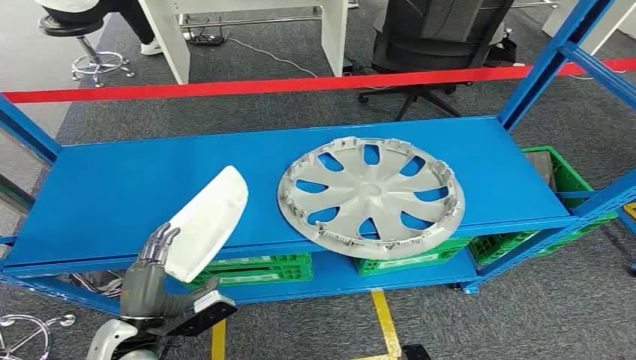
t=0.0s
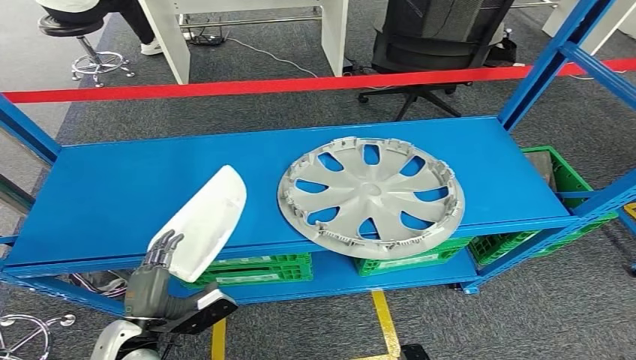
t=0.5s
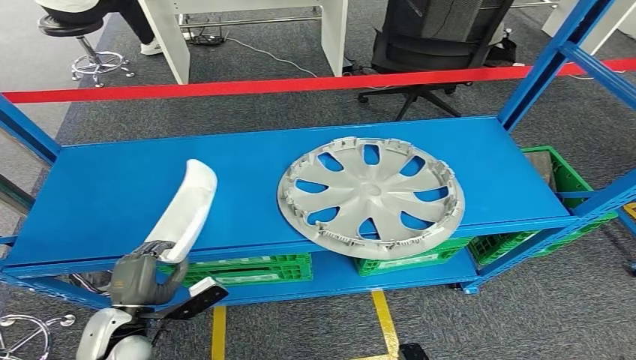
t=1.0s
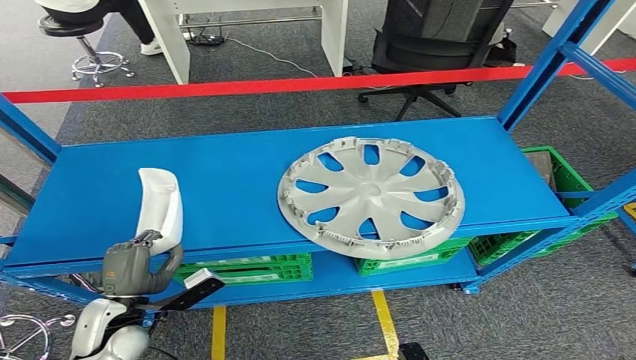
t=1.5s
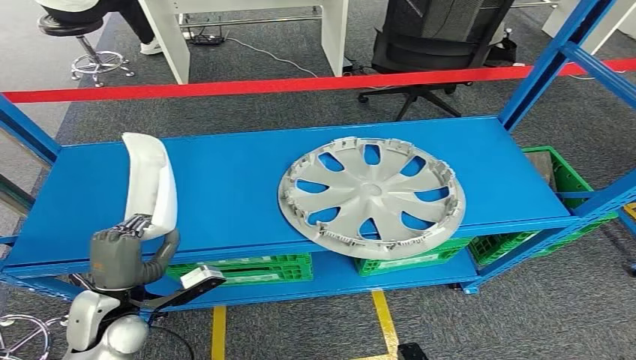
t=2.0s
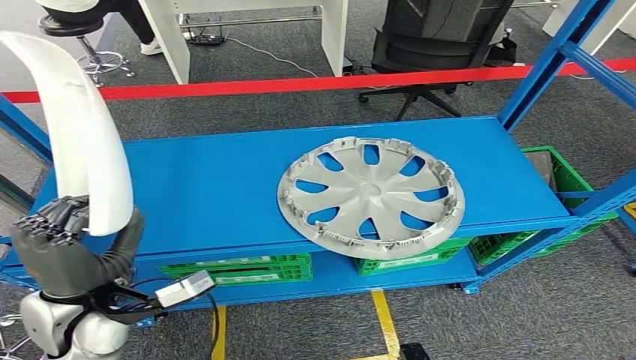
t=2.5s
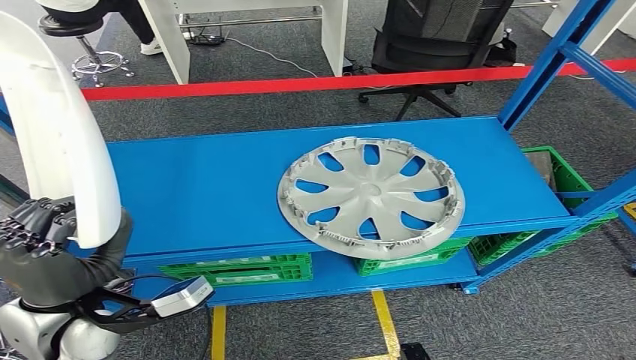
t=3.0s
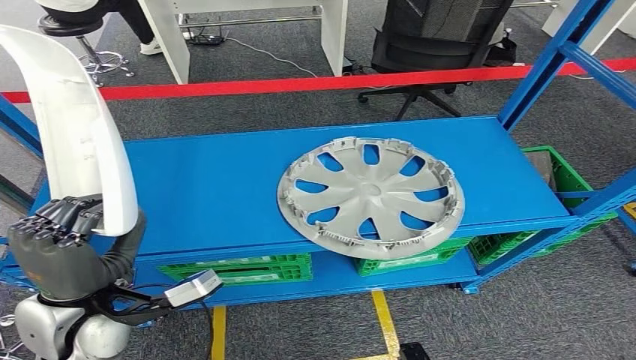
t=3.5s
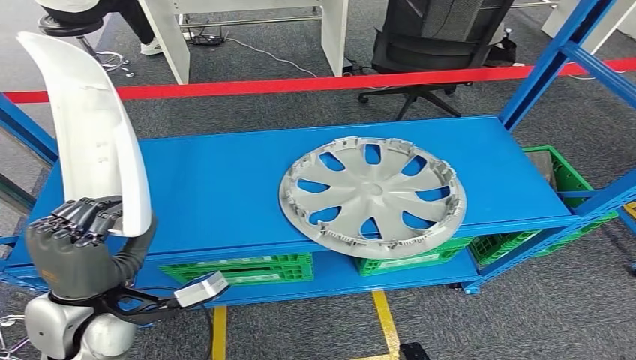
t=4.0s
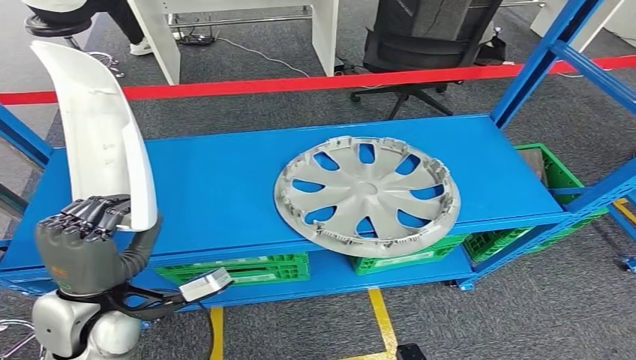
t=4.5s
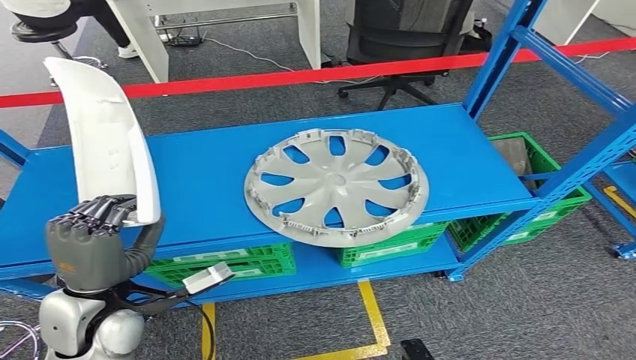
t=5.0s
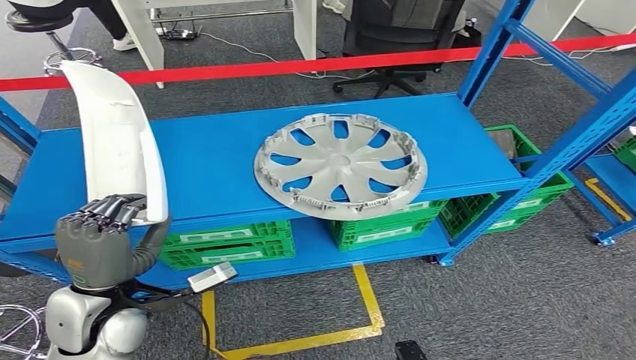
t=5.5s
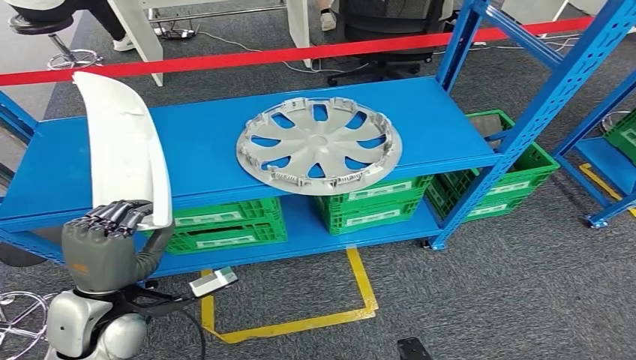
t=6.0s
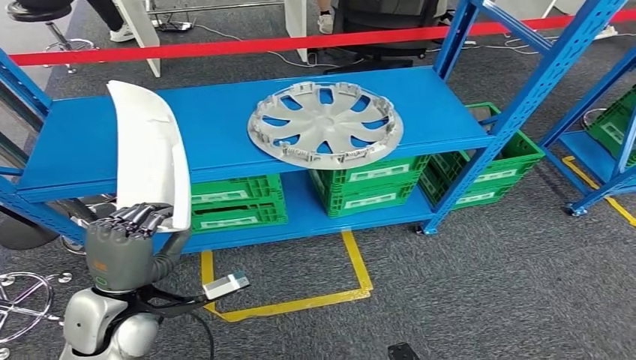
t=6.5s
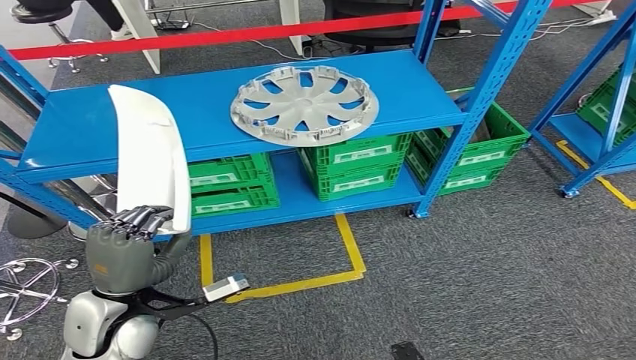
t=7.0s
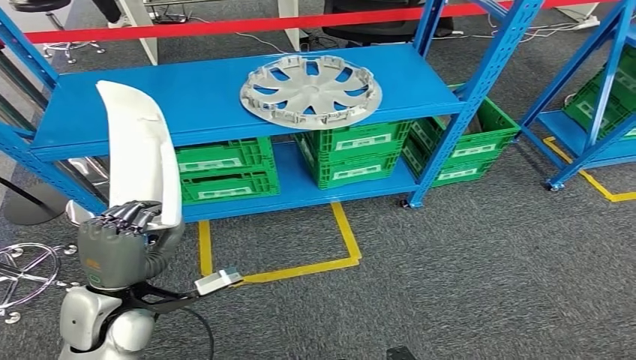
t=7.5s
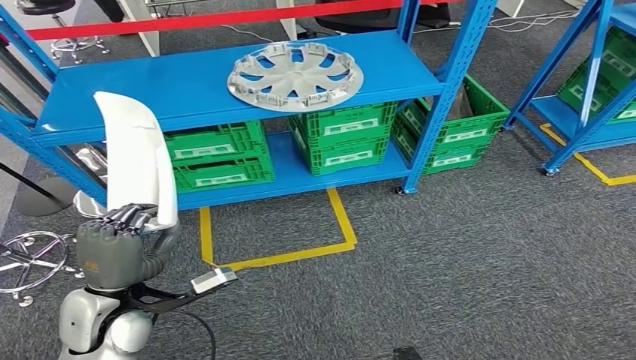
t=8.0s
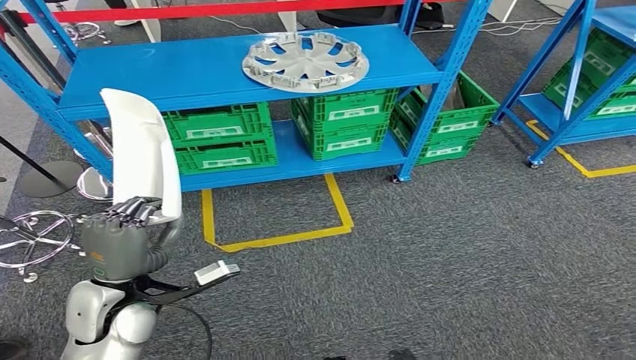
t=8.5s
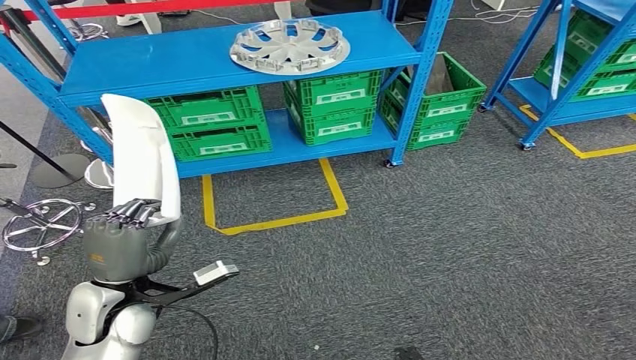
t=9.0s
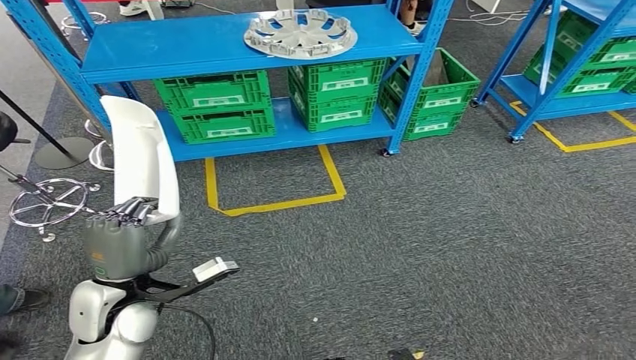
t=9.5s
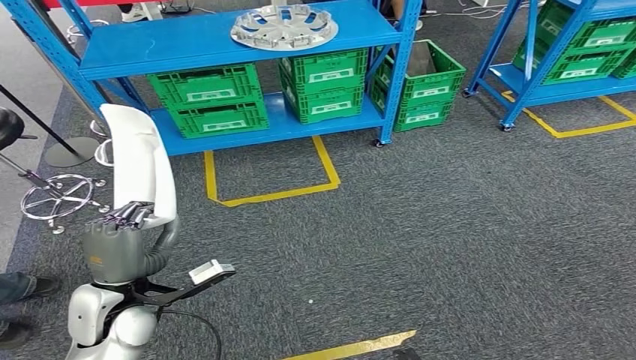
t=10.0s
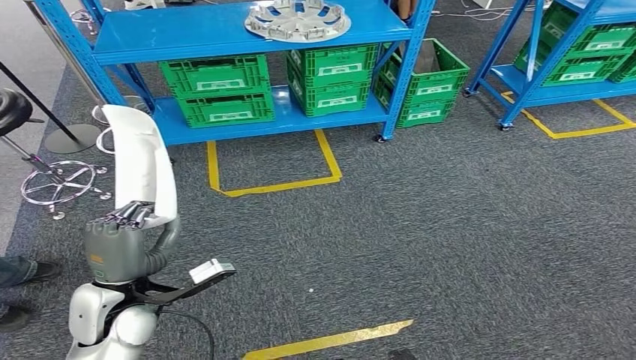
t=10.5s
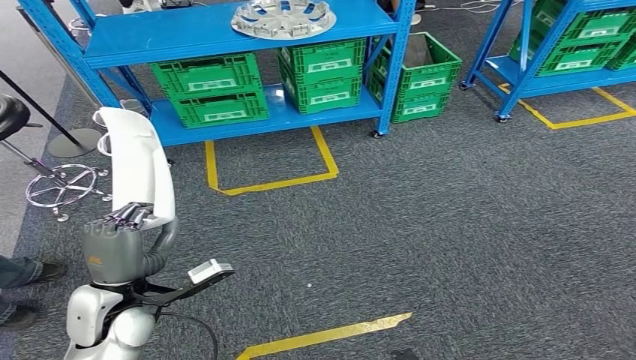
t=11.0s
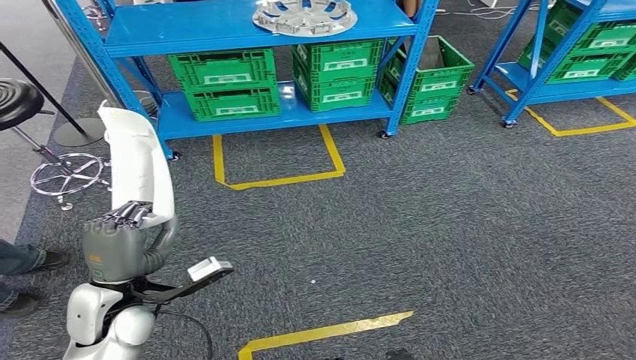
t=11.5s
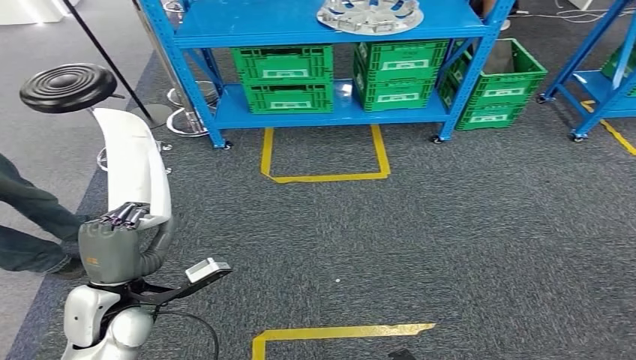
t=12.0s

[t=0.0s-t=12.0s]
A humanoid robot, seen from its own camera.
Step, t=0.0s to t=3.0s: Pick up the small component from the shelf.
t=2.0s to t=4.0s: The left hand moves upward, some 10 cm.

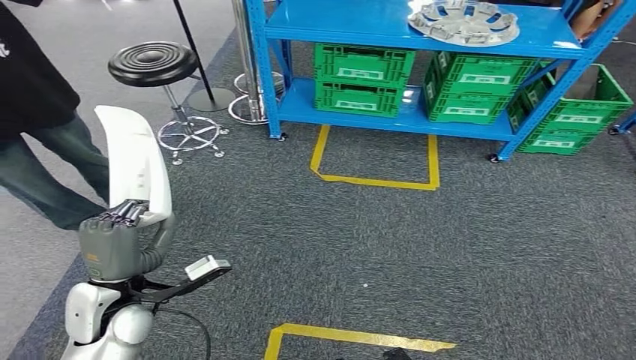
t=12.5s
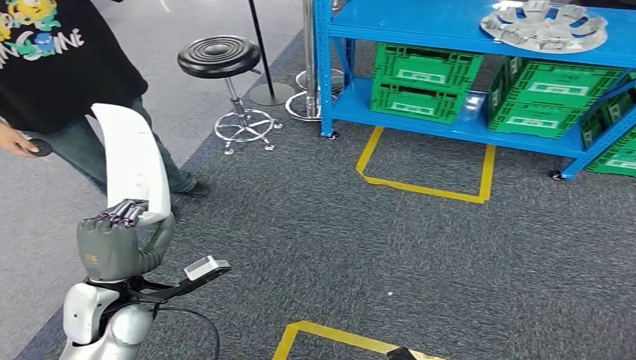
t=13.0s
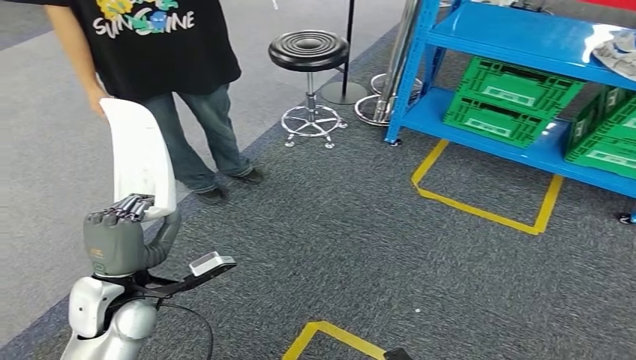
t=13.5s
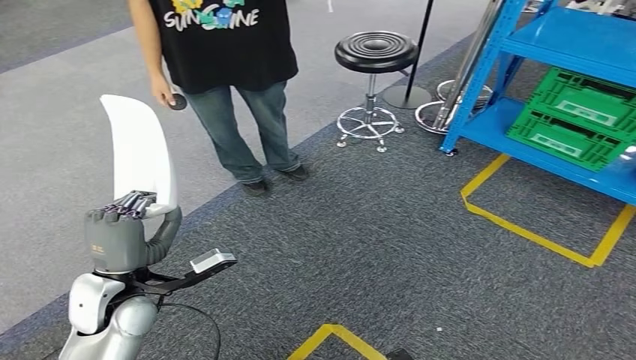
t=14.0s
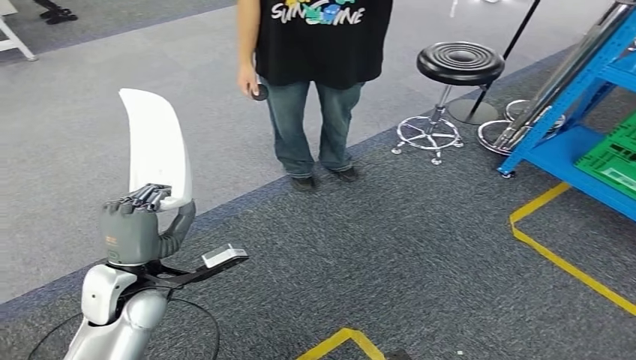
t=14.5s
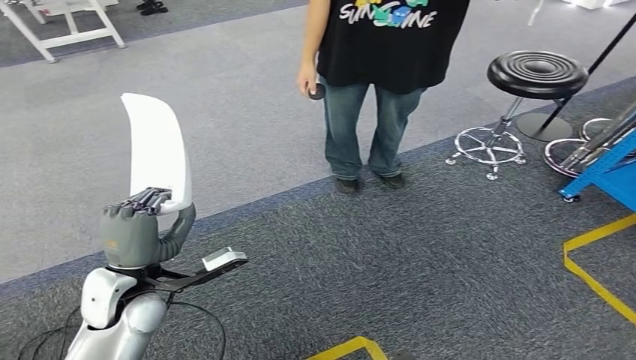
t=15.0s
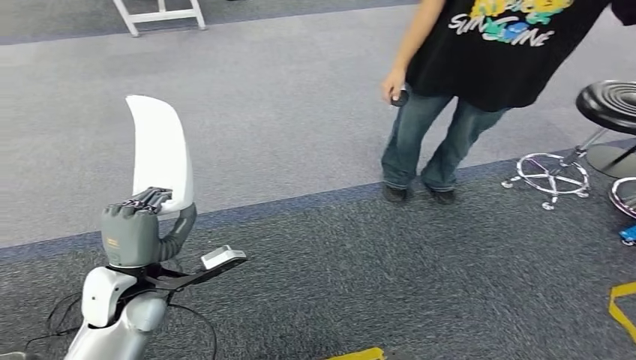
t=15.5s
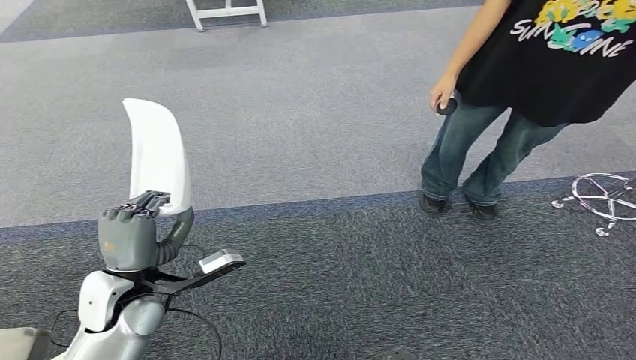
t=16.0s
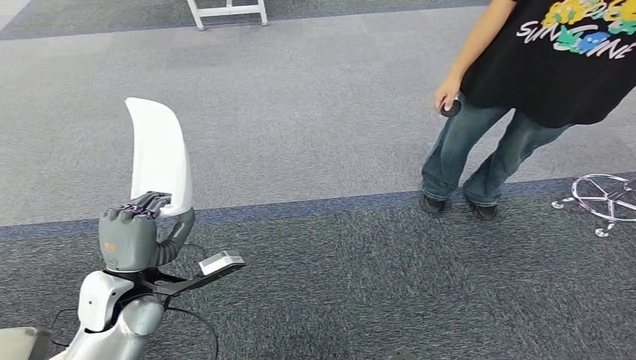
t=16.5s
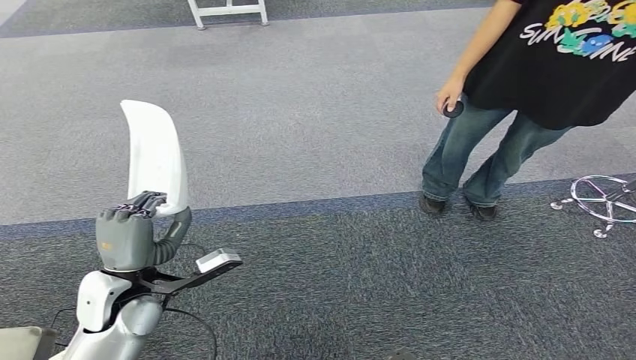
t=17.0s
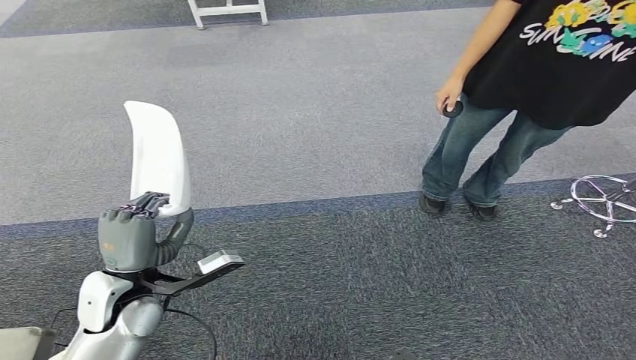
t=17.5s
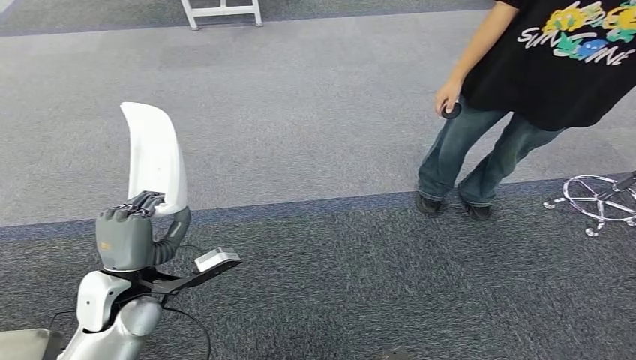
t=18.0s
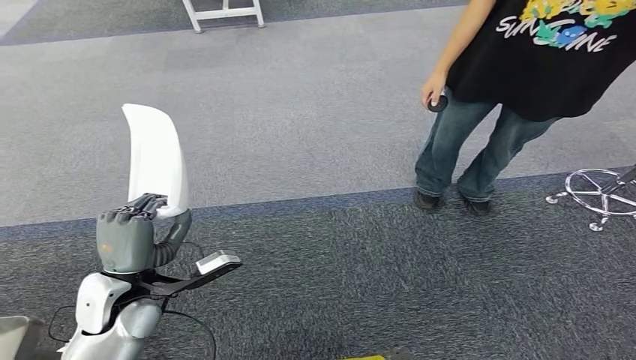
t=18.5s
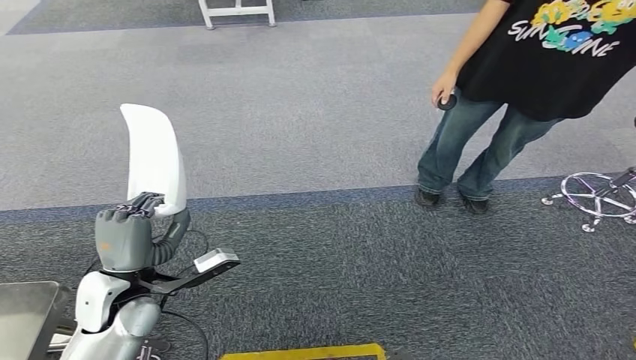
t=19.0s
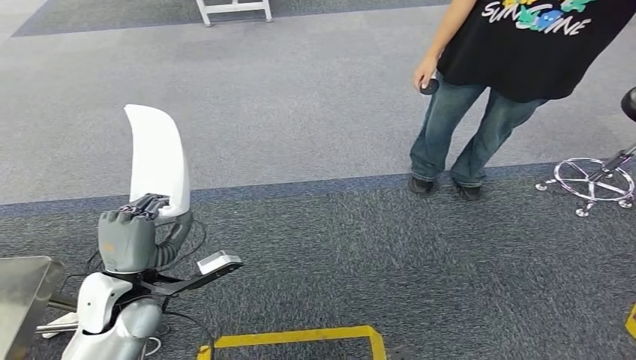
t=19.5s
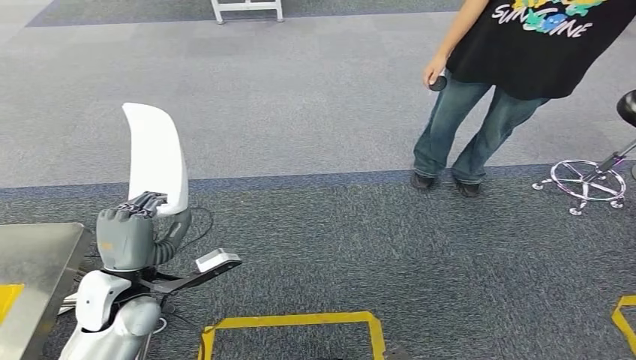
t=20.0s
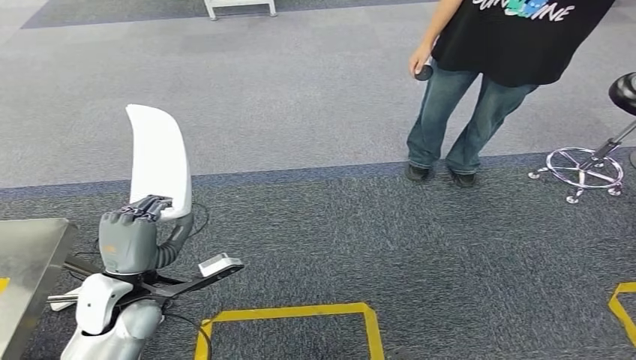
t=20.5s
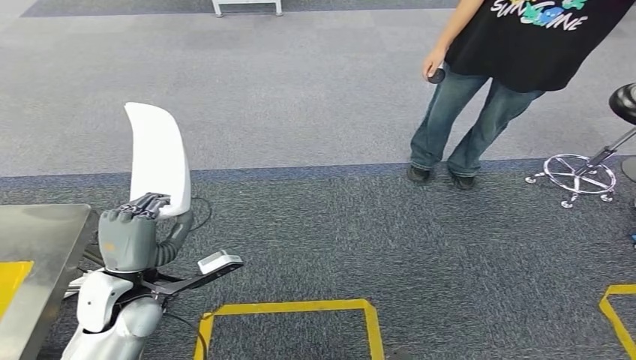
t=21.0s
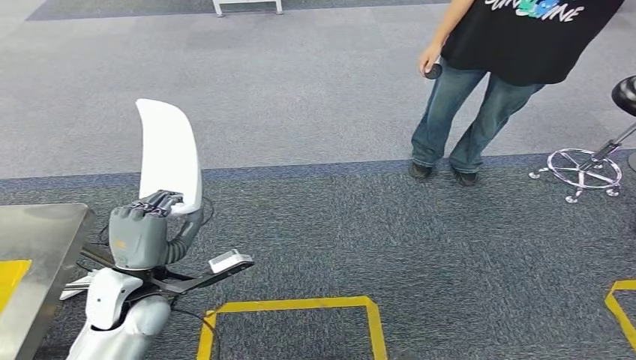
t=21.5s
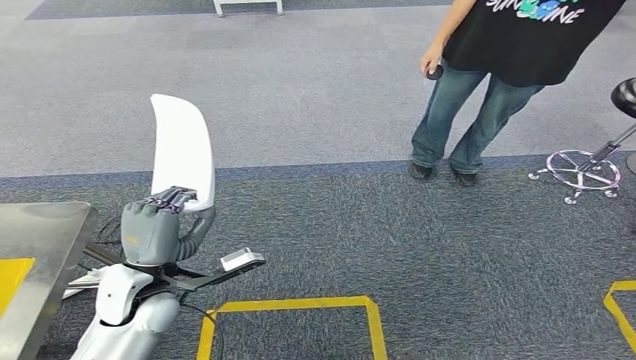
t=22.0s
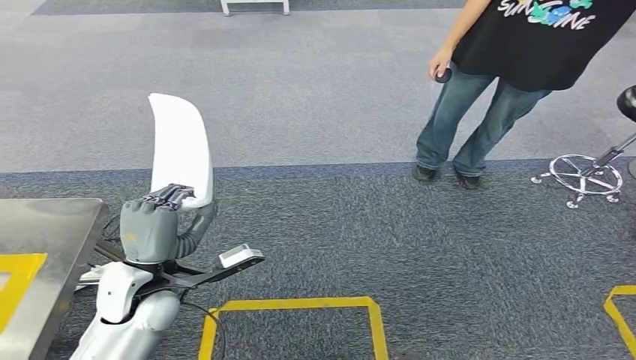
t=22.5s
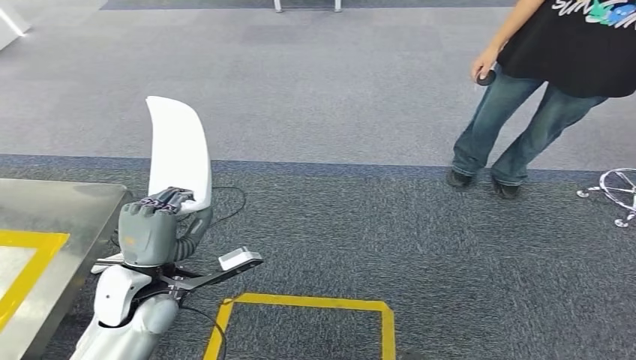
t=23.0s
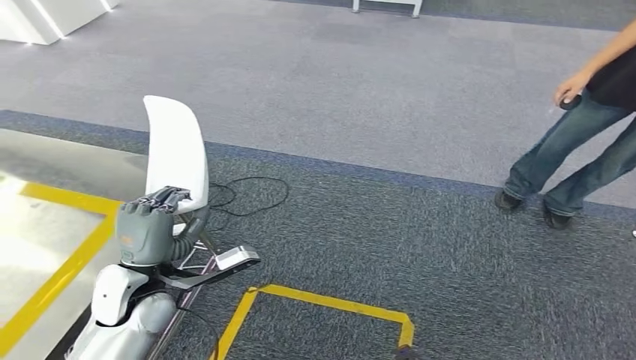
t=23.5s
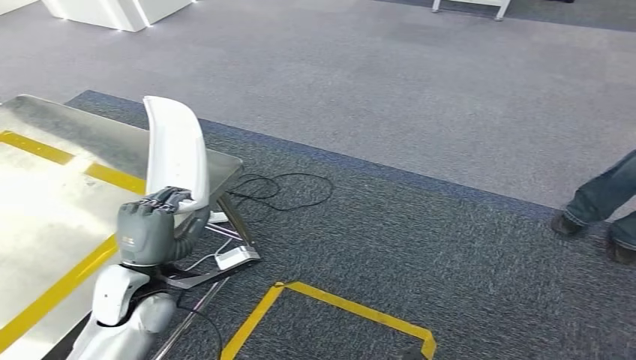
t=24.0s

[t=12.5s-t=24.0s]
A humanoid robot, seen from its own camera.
t=16.5s to t=18.5s: The two hands keep their place.
